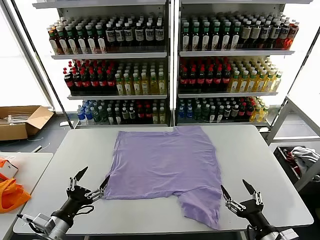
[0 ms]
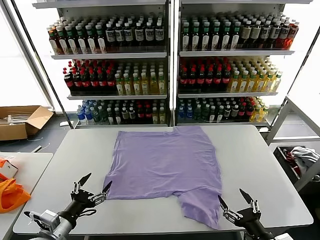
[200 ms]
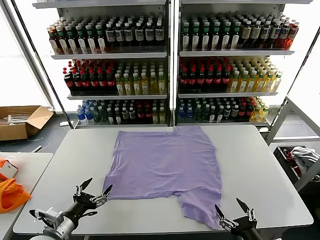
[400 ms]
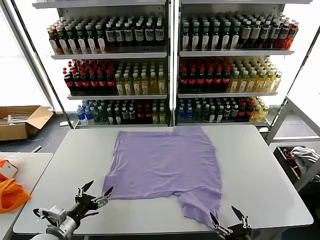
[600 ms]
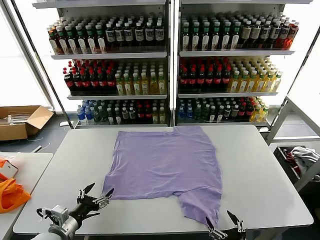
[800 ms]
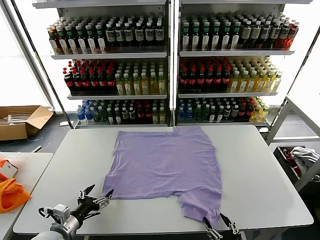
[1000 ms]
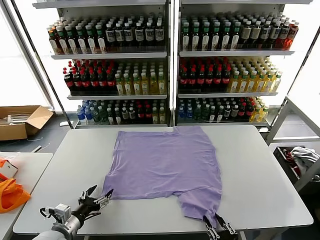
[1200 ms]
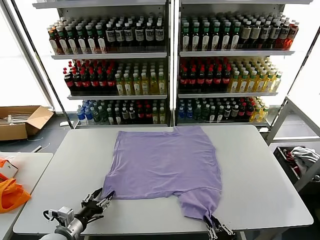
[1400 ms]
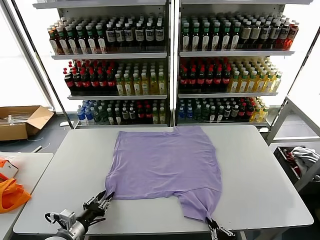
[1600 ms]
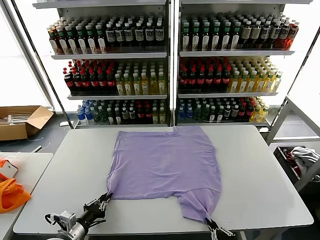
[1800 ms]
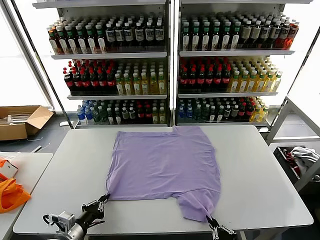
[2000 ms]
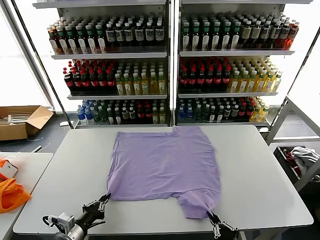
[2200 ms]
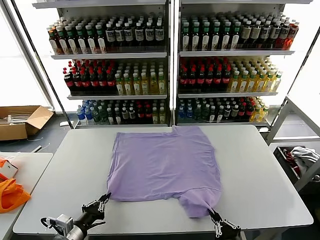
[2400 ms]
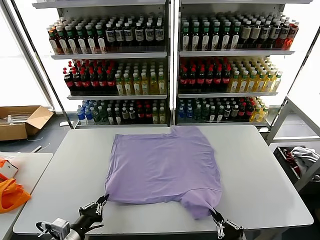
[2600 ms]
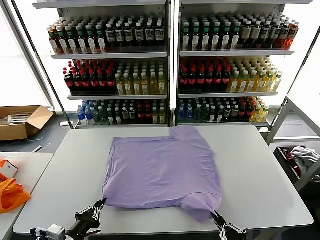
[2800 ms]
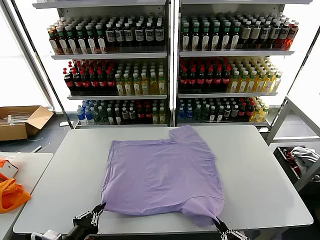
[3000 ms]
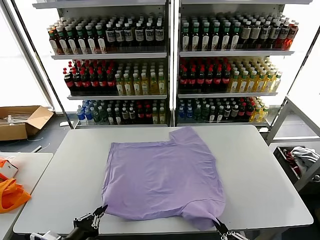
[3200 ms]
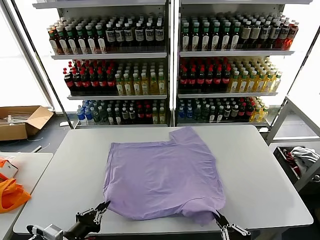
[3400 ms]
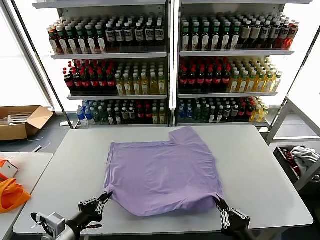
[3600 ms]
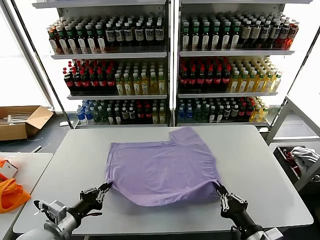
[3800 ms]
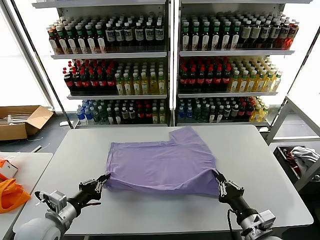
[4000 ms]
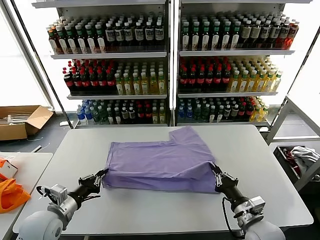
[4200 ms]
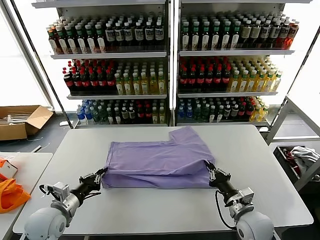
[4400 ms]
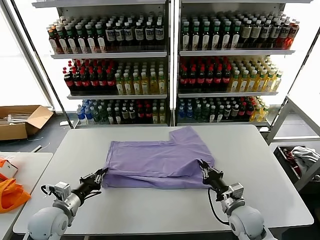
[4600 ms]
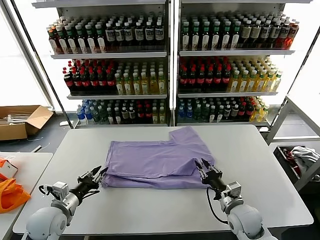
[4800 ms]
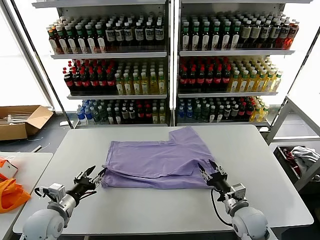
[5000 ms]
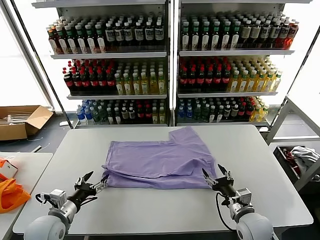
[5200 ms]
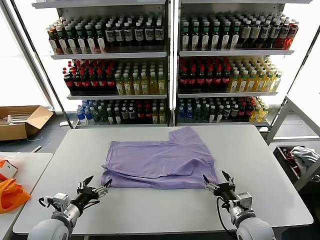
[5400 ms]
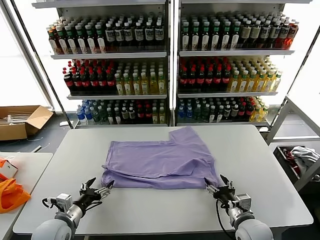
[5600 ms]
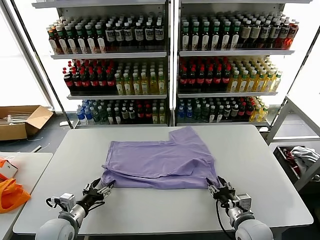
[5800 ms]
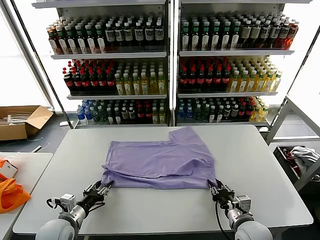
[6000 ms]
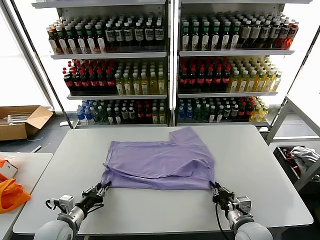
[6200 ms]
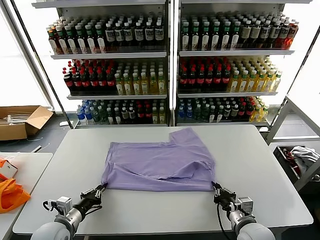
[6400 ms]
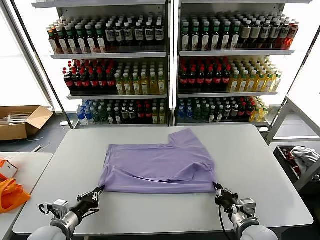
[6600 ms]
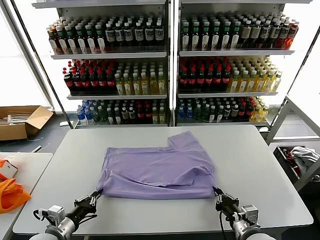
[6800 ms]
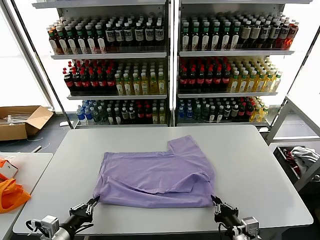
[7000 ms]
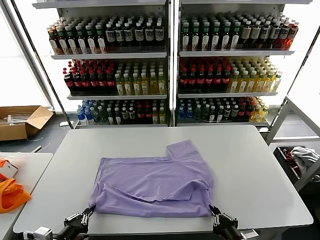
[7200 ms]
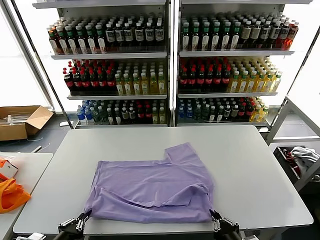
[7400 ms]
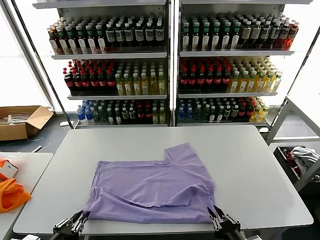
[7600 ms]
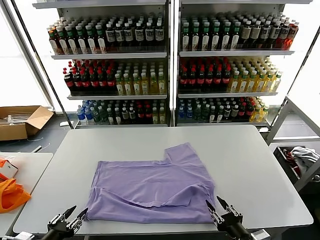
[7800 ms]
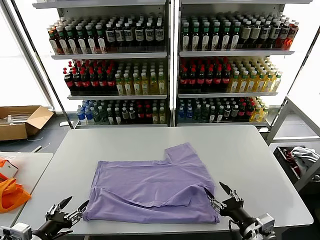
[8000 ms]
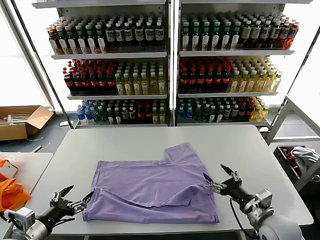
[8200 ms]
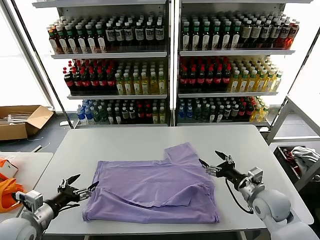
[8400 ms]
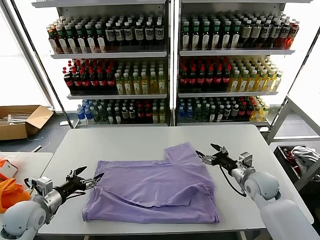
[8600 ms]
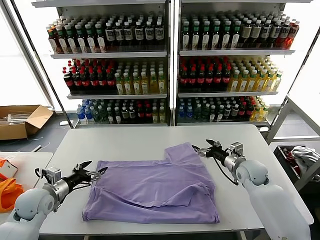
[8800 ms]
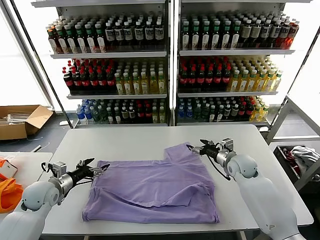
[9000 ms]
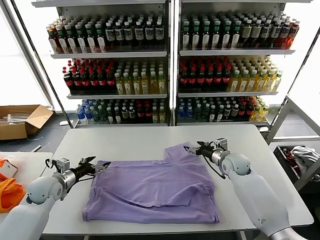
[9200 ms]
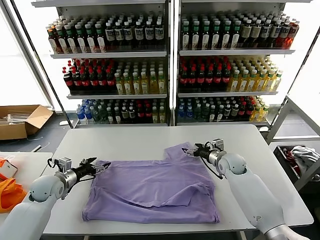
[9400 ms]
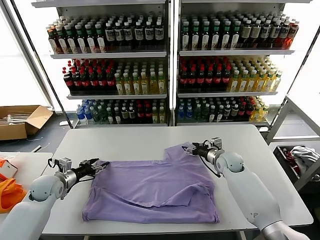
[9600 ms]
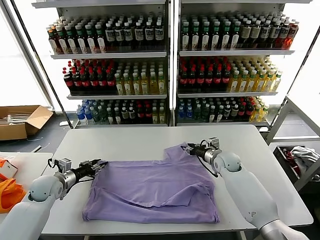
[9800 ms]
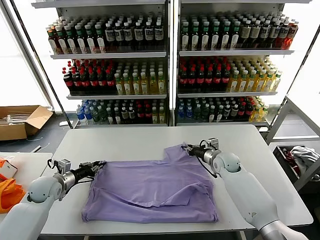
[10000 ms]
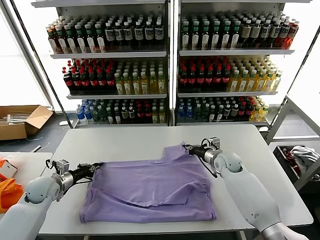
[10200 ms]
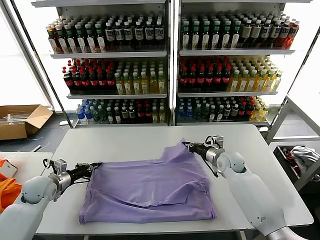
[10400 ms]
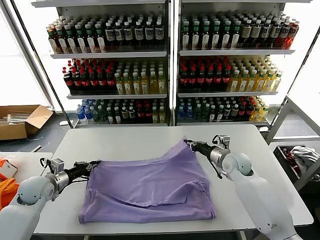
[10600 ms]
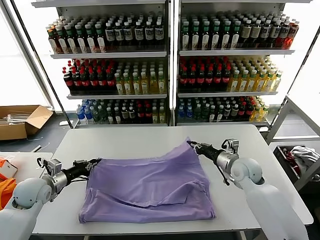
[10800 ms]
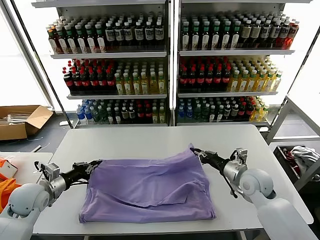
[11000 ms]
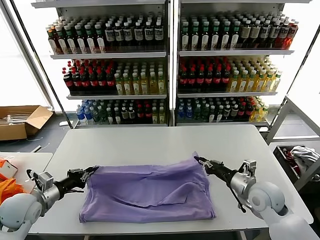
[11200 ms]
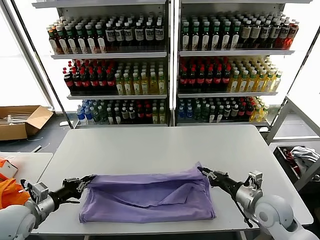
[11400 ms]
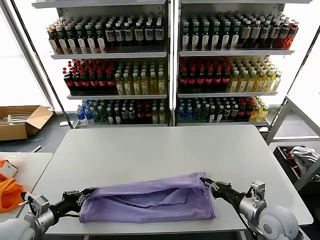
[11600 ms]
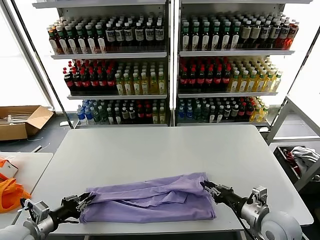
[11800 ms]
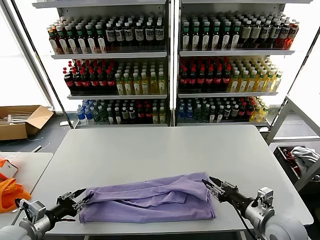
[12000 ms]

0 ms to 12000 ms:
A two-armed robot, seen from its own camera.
Task of the whole recording: fold and organize the clothes.
Step, 0 ms to 2000 ms: use both grippers simultaneously to clamp the lower edge of the clothing fabric.
Step, 2200 ms to 5000 ms: use both grippers to drag the lower edge of the fabric forward and fold it over the upper edge.
Step, 5200 ms to 7600 ms: Drag the clothes downward with both gripper.
Step, 7800 ms to 10200 ms: use both grippers simultaneously to clamp the upper edge of the clothing fabric.
Step, 10400 ms to 12000 ms: use both grippers to drag the upper edge of the fabric backward and fold it over the lower edge.
1600 ms to 3000 ms: The left gripper goes roughly 10 cm backward and upward, and closes. Meanwhile the right gripper shifts about 5 cm upward.
3000 ms to 4400 ms: The left gripper goes some 15 cm forward. Meanwhile the right gripper moves forward, about 25 cm.
4400 ms to 6000 ms: The right gripper opens and closes again. The left gripper goes some 5 cm downward, and opens up.
6000 ms to 7600 ms: Both grippers move backward and upward, approximately 15 cm.
7600 ms to 9000 ms: Both grippers move forward, some 30 cm. The left gripper opens. Meanwhile the right gripper opens its fingers.
9000 ms to 10400 ms: The right gripper closes its fingers; the left gripper closes up.
10400 ms to 12000 ms: The grippers both shift backward by about 20 cm. The right gripper opens up, while the left gripper opens up.

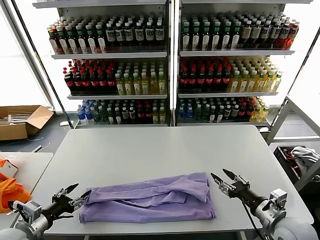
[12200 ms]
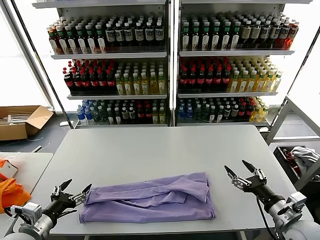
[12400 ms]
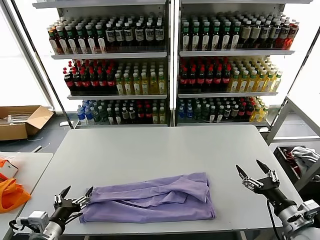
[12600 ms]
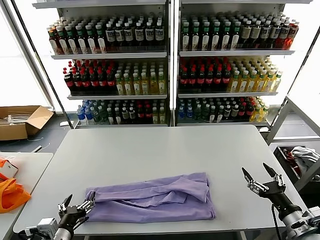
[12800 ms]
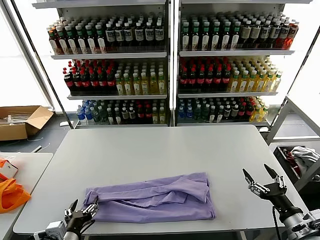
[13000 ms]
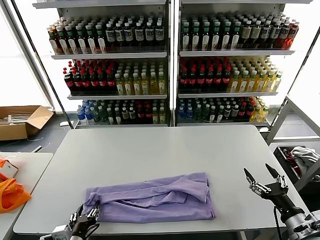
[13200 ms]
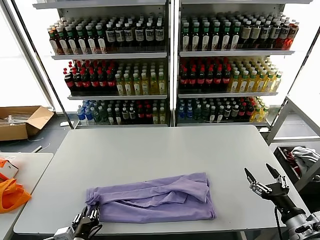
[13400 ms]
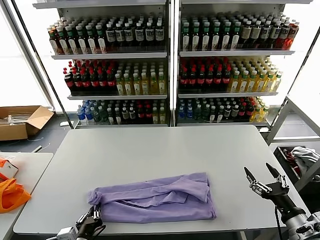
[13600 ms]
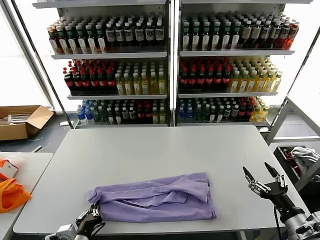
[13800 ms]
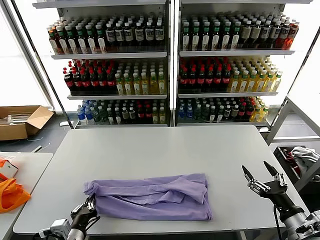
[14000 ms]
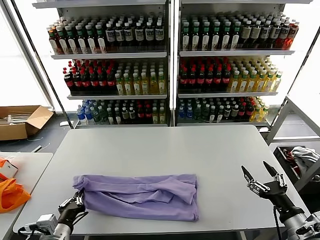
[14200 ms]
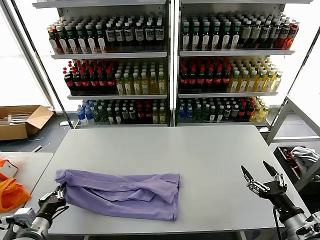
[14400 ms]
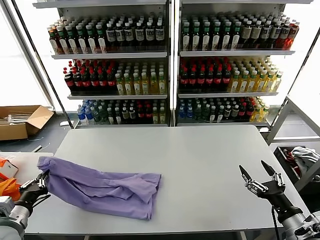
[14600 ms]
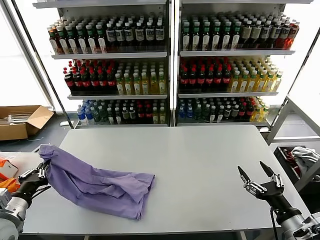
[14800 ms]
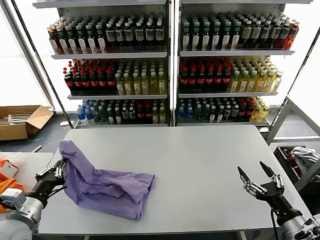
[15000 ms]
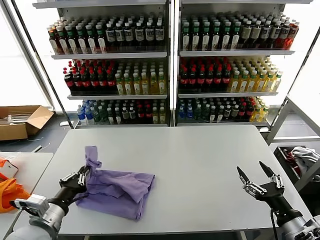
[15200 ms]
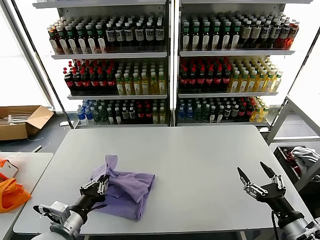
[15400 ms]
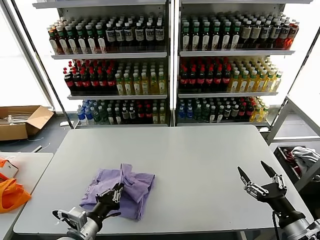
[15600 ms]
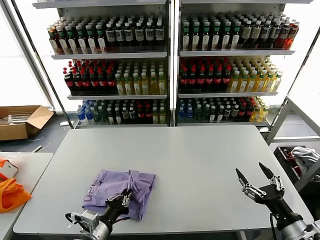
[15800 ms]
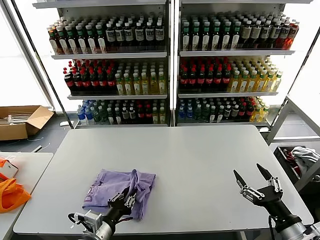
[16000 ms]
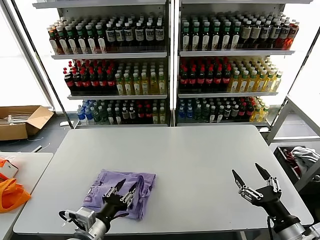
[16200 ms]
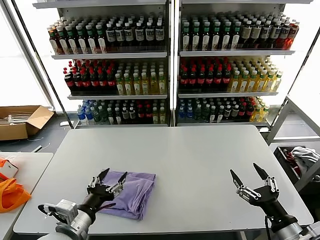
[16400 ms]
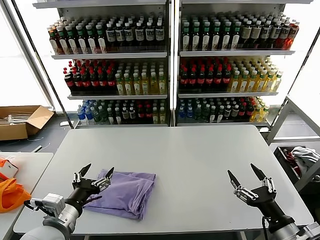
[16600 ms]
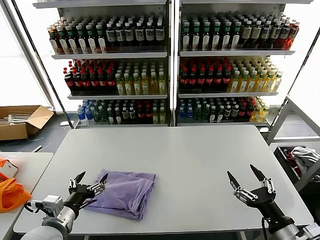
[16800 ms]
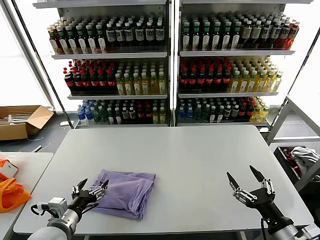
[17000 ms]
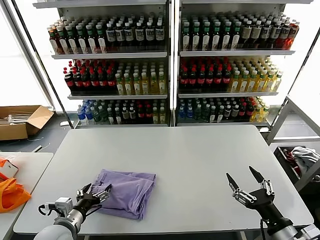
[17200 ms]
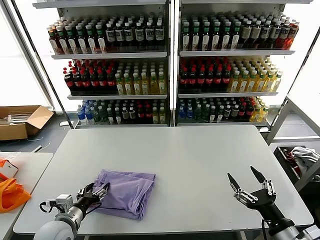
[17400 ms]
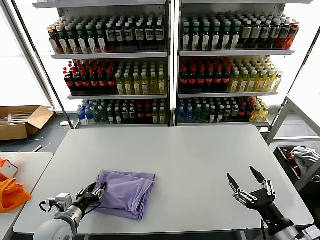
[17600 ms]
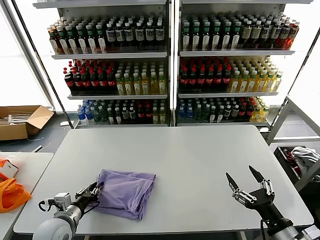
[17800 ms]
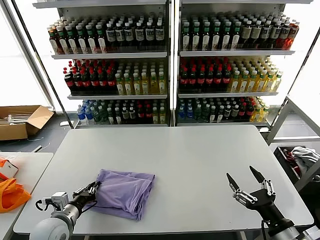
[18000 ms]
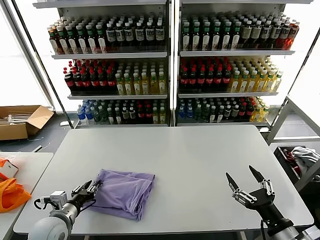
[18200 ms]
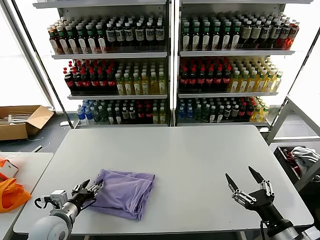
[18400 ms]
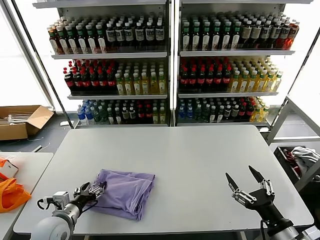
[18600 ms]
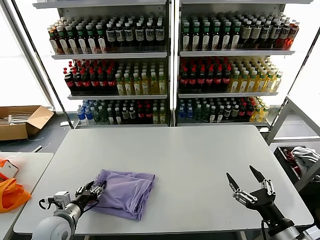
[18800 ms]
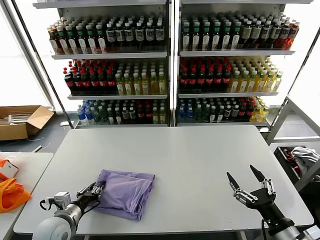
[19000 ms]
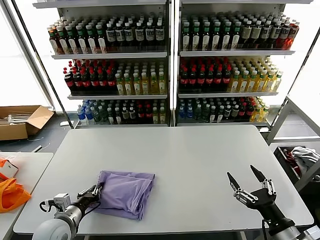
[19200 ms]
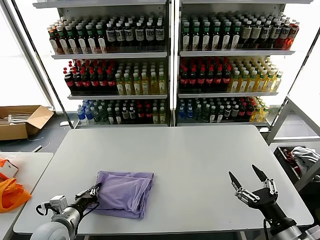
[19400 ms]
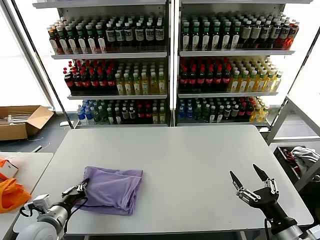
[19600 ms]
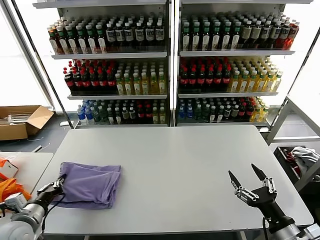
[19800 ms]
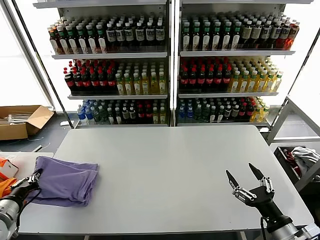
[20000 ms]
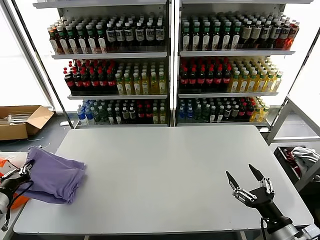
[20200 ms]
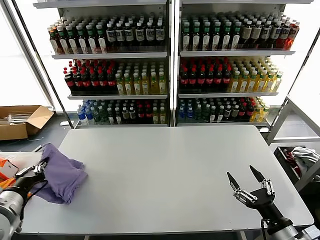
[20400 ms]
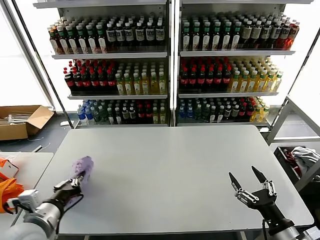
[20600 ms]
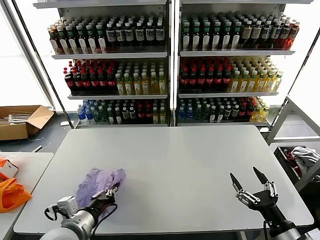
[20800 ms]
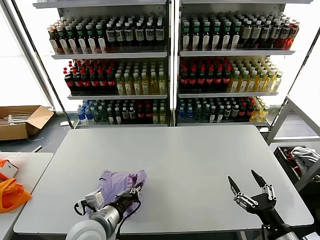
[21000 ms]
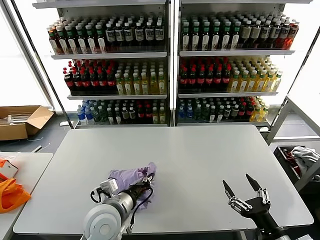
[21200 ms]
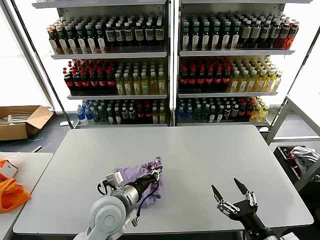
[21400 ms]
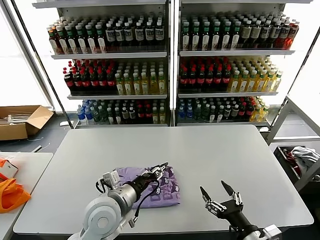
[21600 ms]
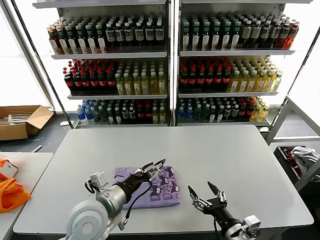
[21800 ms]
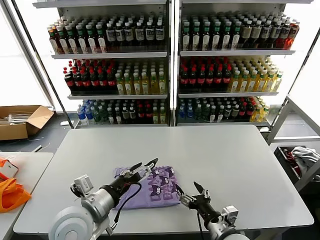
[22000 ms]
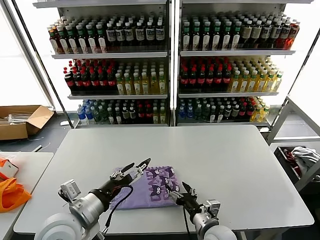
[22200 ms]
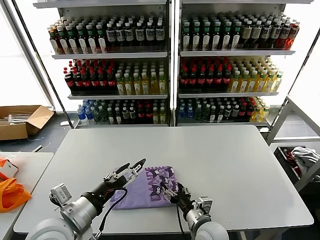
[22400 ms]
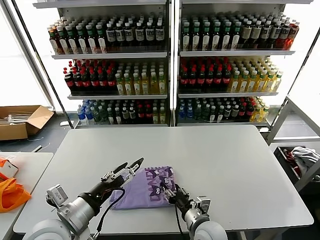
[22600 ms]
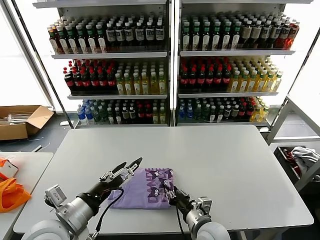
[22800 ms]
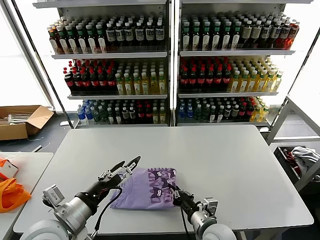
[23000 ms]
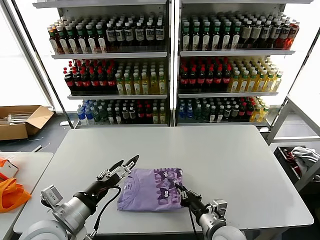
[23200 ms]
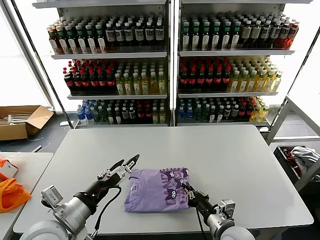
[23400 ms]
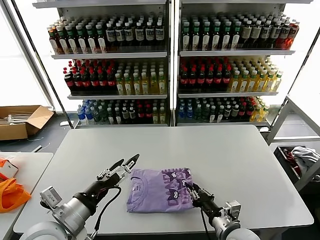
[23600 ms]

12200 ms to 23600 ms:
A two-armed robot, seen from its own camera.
Task of the whole recording: fold and organize the clothes.
Step, 12200 ms to 13600 ms: use the left gripper to clamp the left edge of the fabric.
Step, 14000 ms to 16200 ms: use the left gripper to drag the left edge of the fabric to the left and folds it over the right edge.
Step, 16400 ms to 21400 ms: Flip the folded clothes over with left gripper.
12200 ms to 13600 ms: The right gripper moves backward, about 5 cm, while the left gripper is displaced to the right by approximately 15 cm, and opens, then closes again.
13600 ms to 15000 ms: The left gripper shifts roughly 20 cm to the left, upward and forward.
15000 ms to 16400 ms: The left gripper travels to the right by roughly 15 cm, and opens its fingers.
16400 ms to 17800 ms: The left gripper moves to the left, downward and forward, some 15 cm.
17800 ms to 19400 ms: The left gripper closes up.
19400 ms to 20800 ms: The left gripper moves upward, roughly 10 cm, and reaches approximately 15 cm to the left, then returns.
20800 ms to 22200 ms: The left gripper moves to the right, about 5 cm, and opens; the right gripper travels to the left, forward and downward by some 20 cm.
22200 ms to 23600 ms: The right gripper closes its fingers.
